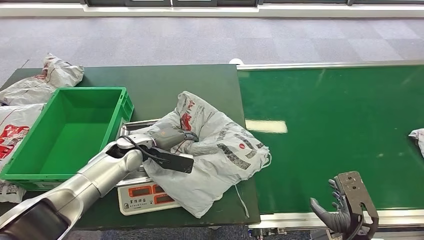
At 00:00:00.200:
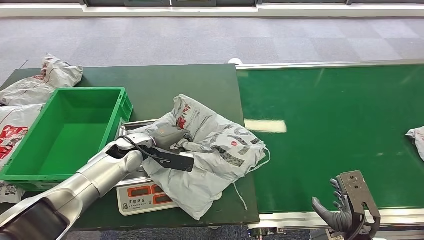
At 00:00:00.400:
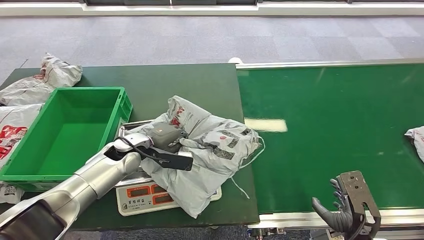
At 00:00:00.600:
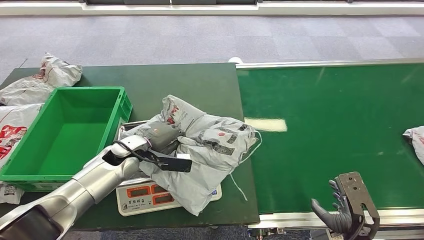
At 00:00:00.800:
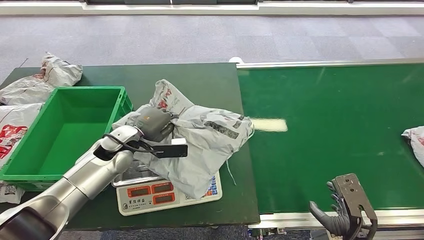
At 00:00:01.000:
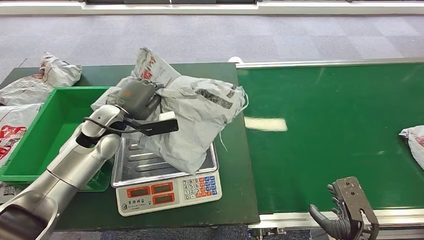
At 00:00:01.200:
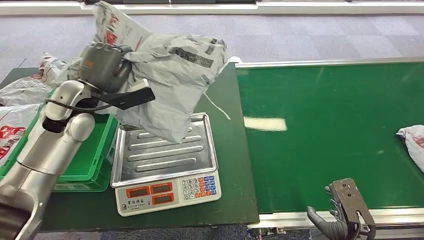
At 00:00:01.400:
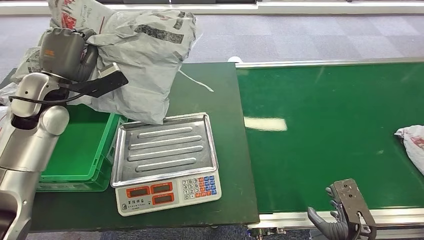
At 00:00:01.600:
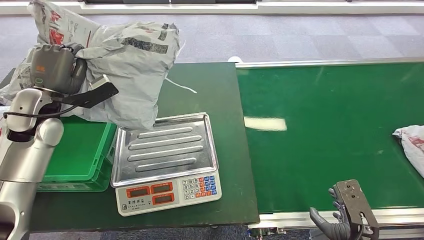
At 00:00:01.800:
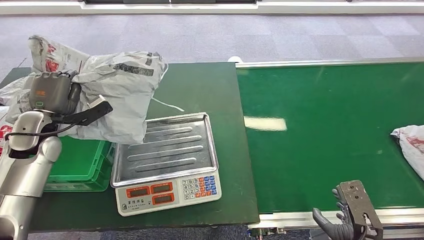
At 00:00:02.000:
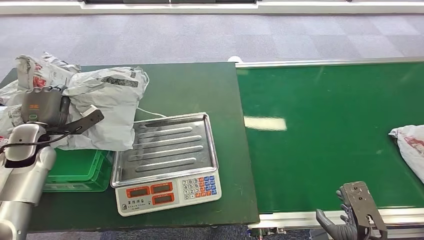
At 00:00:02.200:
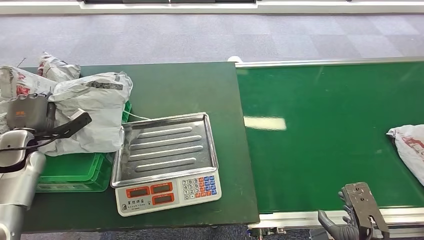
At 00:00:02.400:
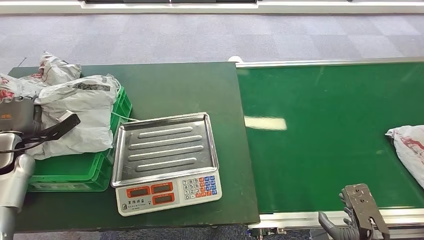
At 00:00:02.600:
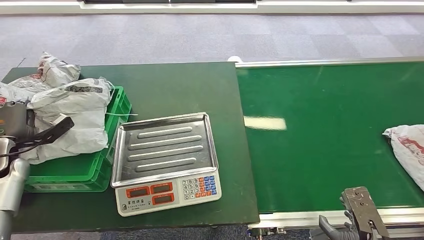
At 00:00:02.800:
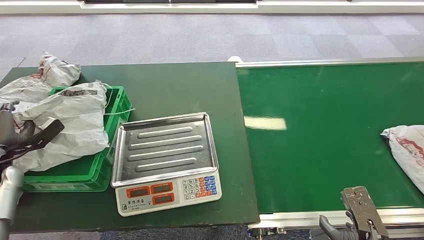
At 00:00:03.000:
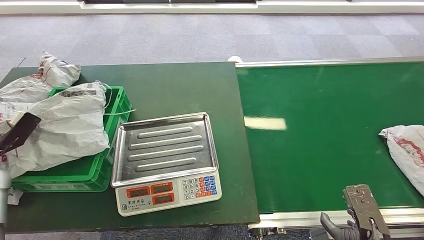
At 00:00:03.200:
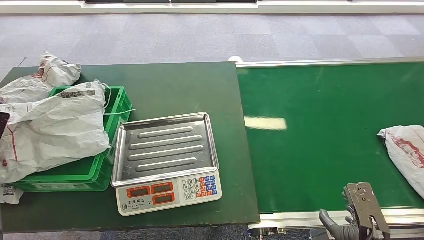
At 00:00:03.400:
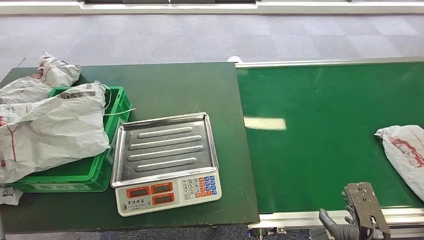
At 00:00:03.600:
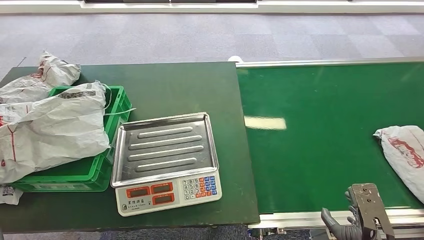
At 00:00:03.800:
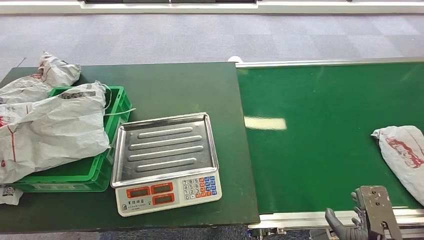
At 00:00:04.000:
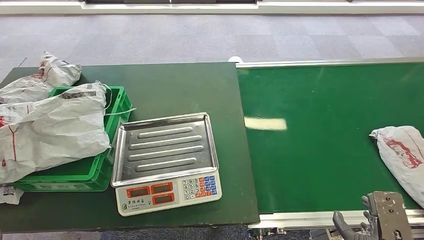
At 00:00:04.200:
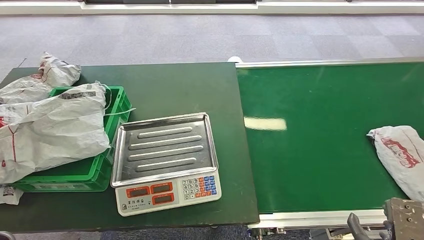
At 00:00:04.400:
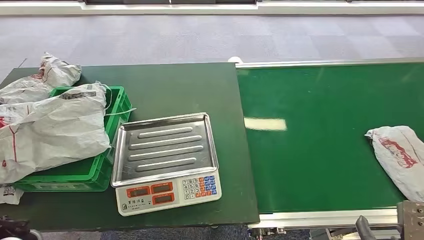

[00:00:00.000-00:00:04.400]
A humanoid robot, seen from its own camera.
Task of the whole recording: Weigh the package on the weighing device and place it in the left basket.
Step, 00:00:01.200 to 00:00:04.200: Place the package into the parcel locker.
00:00:03.000 to 00:00:04.400: The left hand is displaced to the right and backward by approximately 20 cm.

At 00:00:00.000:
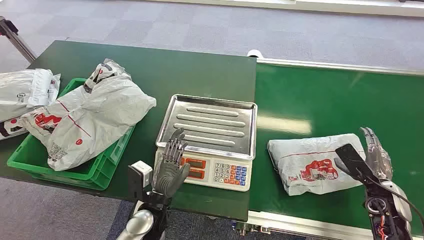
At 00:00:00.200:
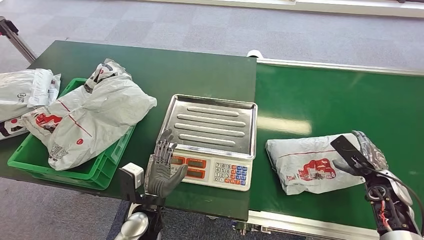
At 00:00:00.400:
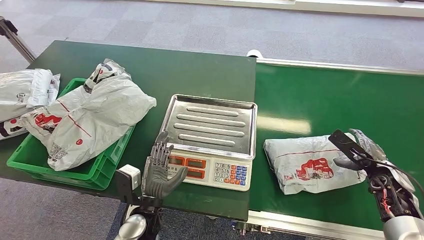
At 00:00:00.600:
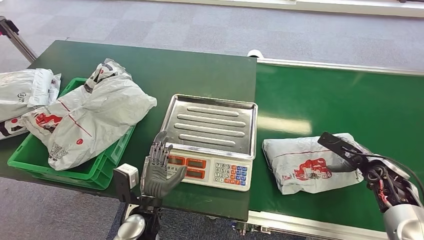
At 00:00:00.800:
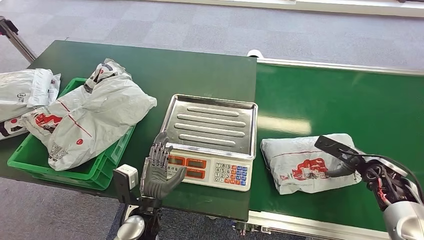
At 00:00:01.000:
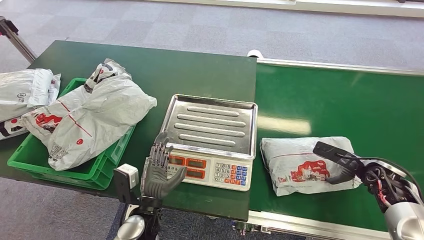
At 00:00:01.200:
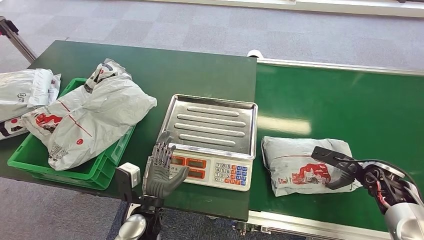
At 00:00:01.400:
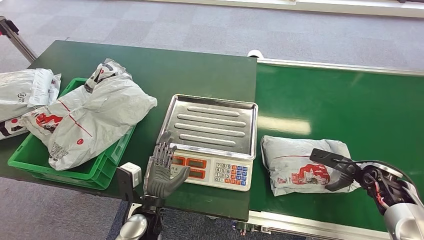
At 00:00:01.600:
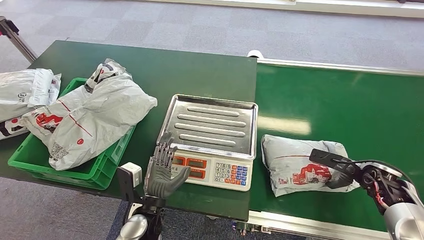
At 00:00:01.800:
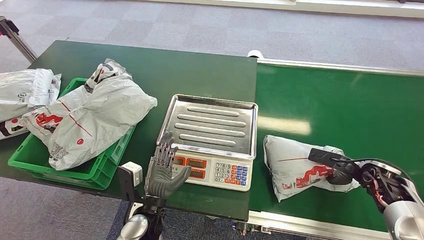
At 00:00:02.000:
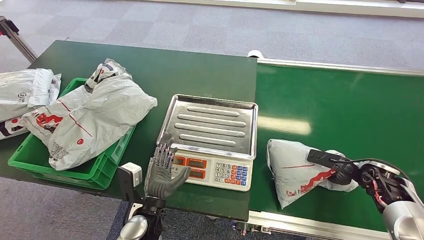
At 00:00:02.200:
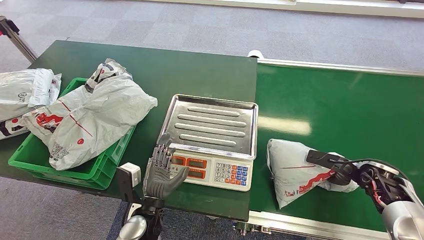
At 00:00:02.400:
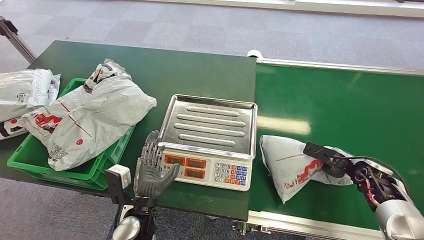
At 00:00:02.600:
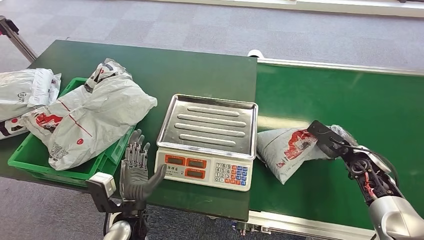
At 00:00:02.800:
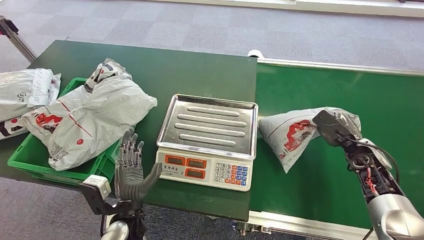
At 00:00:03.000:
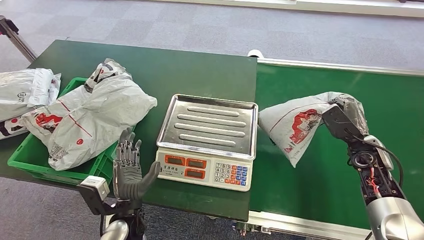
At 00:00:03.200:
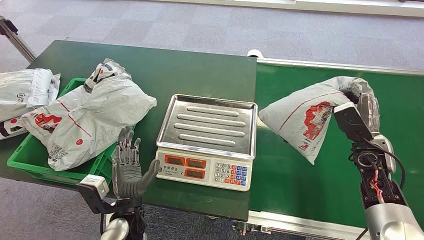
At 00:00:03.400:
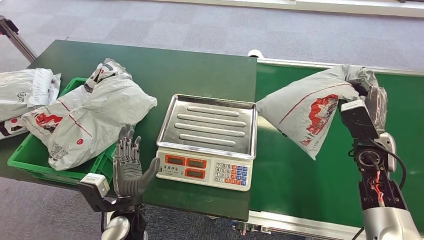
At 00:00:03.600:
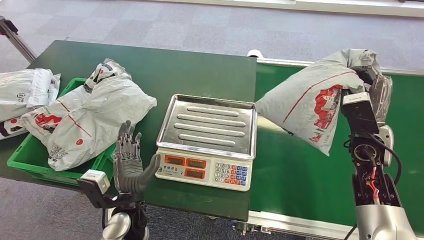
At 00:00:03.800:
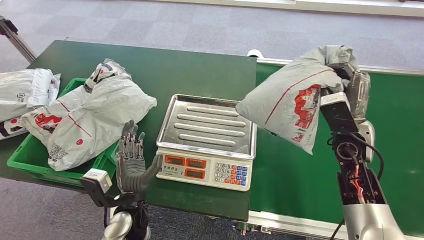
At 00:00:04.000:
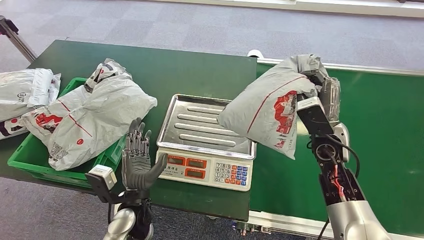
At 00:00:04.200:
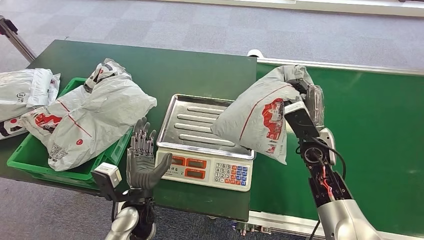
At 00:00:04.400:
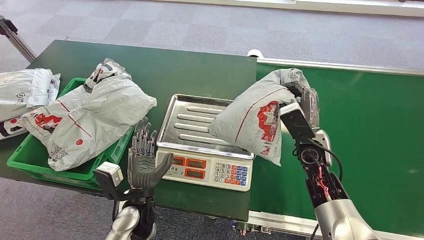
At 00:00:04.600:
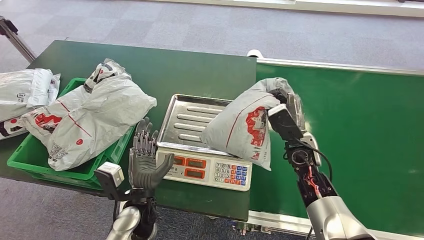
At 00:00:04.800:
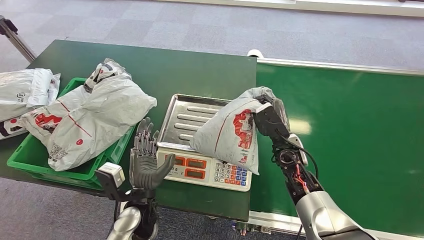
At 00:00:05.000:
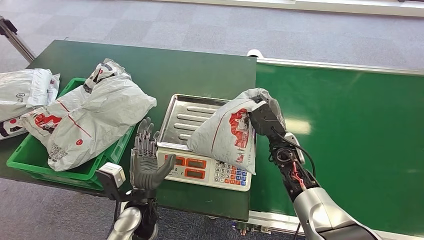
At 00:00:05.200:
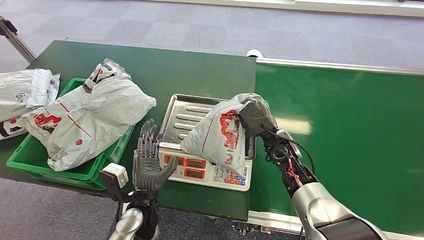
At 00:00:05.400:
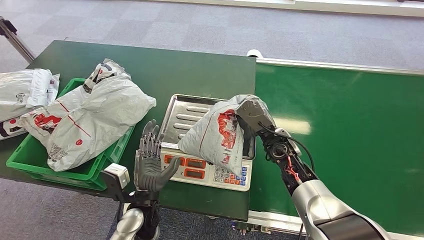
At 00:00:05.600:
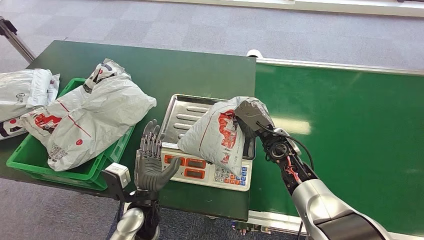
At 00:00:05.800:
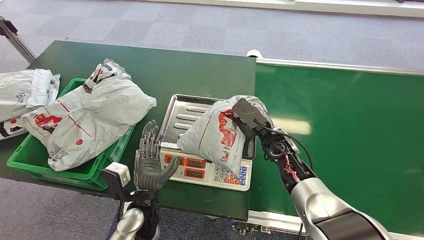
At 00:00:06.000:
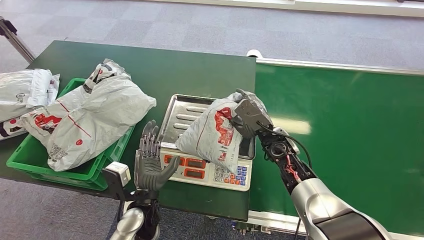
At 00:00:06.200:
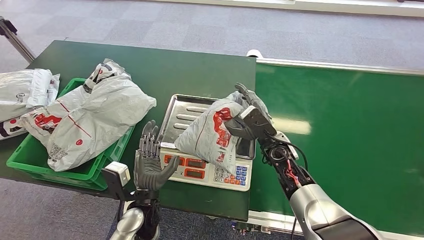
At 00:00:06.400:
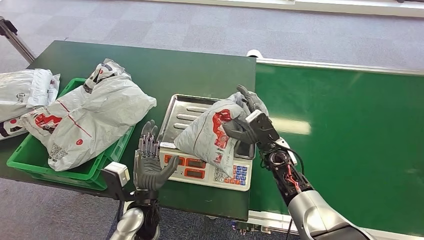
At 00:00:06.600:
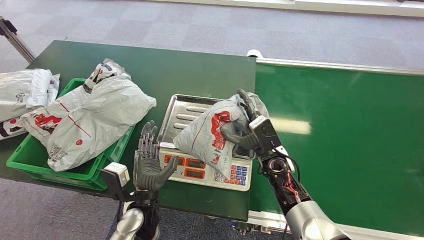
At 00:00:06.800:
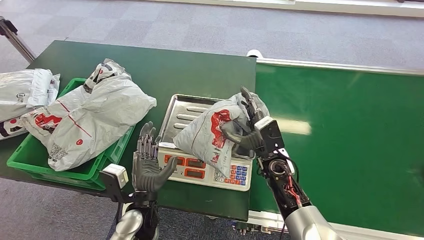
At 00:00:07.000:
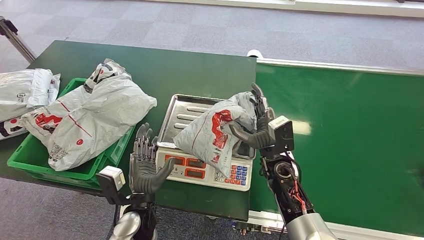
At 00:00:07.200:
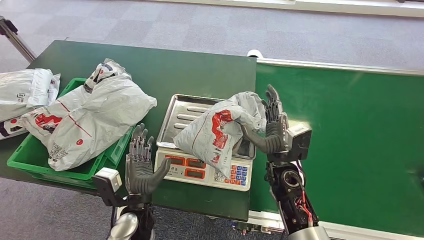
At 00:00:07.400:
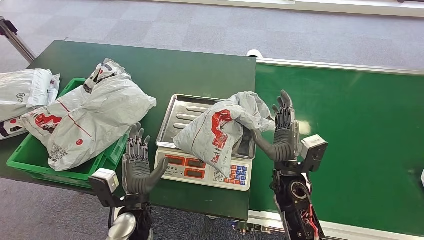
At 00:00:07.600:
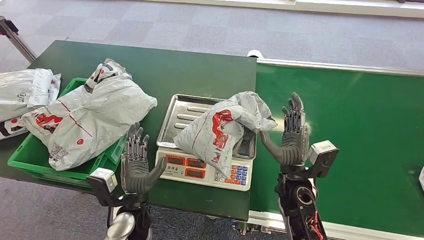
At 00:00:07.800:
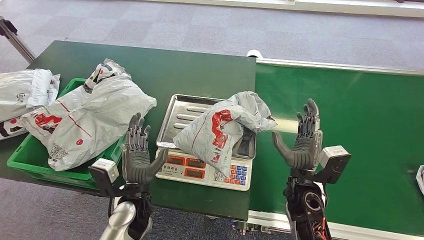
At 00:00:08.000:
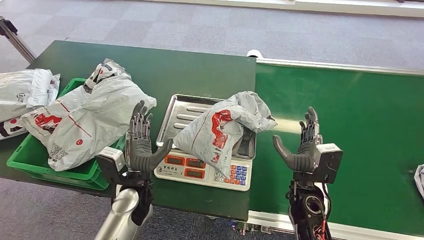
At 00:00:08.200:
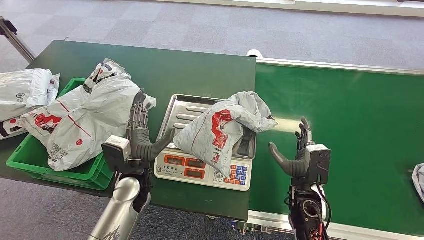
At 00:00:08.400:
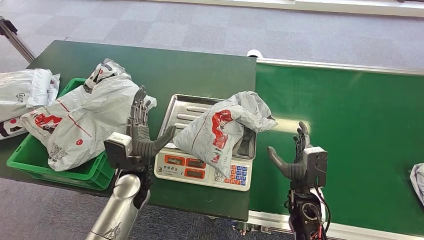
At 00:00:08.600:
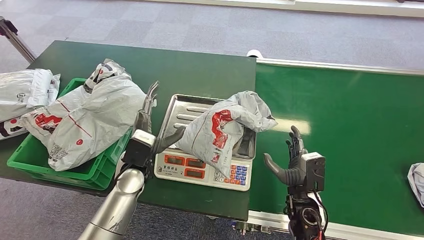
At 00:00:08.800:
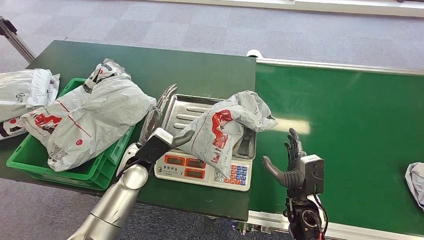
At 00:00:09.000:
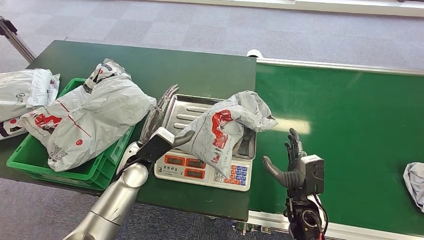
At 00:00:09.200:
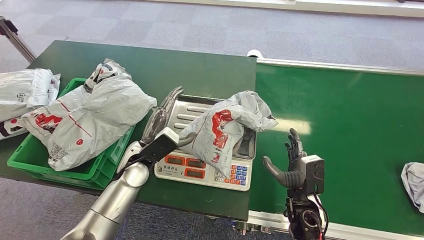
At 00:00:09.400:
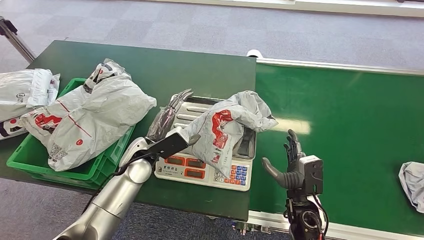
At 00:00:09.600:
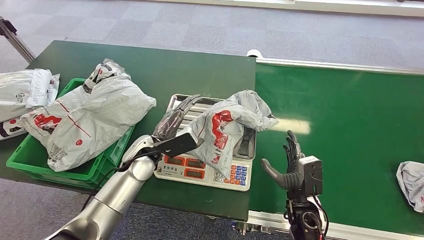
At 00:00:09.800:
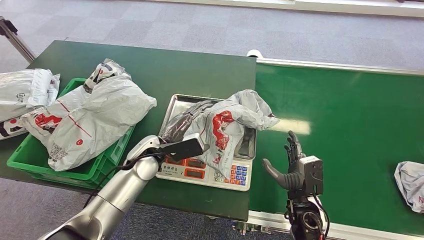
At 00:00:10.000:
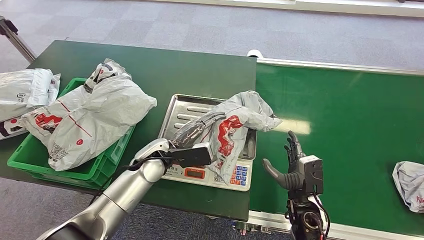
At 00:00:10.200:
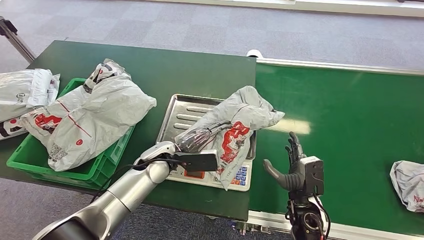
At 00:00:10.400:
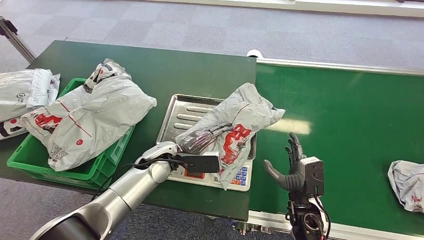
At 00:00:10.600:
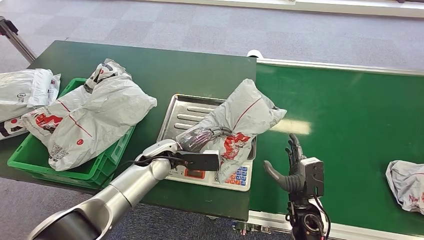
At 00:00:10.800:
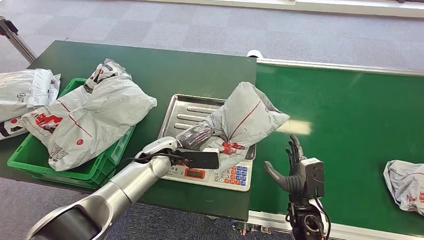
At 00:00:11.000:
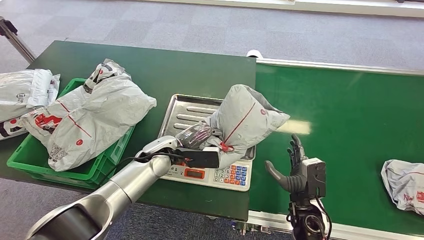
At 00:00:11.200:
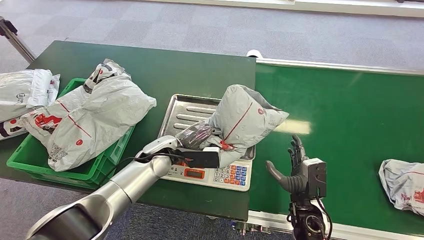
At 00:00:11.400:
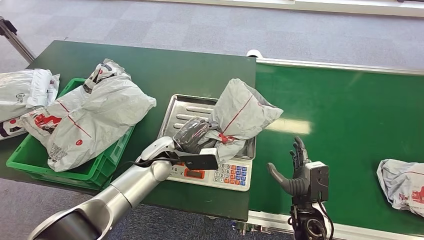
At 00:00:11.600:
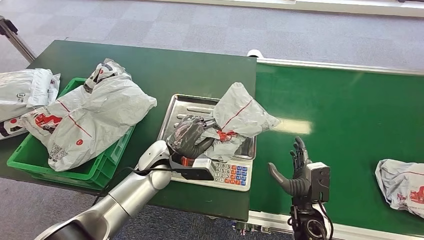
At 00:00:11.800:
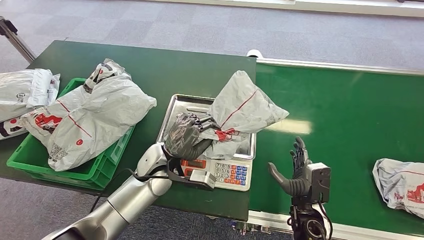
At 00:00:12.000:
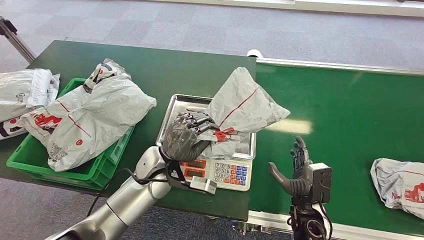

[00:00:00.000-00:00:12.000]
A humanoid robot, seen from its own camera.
Task of the whole recording: Weigh the package on the weighing device and place it in the left basket.
Step, 00:00:00.000 to 00:00:03.400: Pick up the package from the conveyor belt.
Step, 00:00:04.600 to 00:00:07.600: Place the package onto the inbound machine.
00:00:01.600 to 00:00:03.000: The right hand shifts approximately 5 cm to the left.
00:00:04.400 to 00:00:06.000: The right hand goes some 5 cm to the left.
00:00:06.000 to 00:00:07.600: The right hand goes some 10 cm backward.
00:00:07.600 to 00:00:09.000: The left hand goes some 15 cm forward and upward. The right hand heads downward, covering about 5 cm.
00:00:09.000 to 00:00:10.400: The left hand ends up about 5 cm from where it was.
